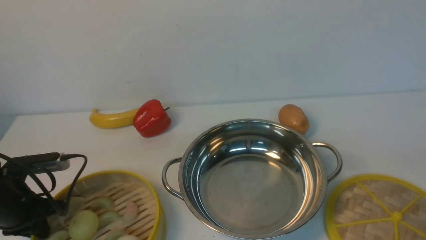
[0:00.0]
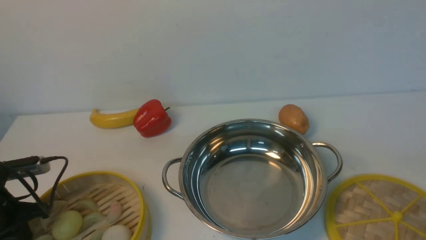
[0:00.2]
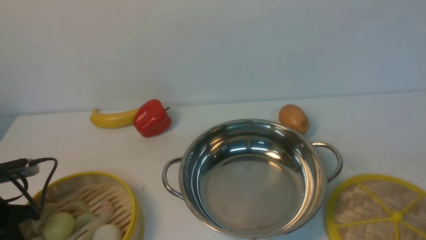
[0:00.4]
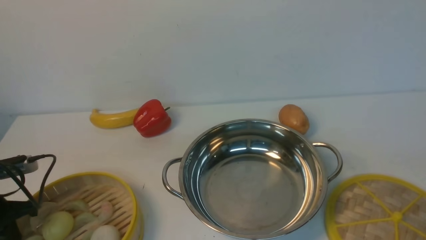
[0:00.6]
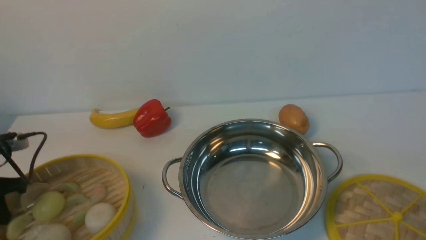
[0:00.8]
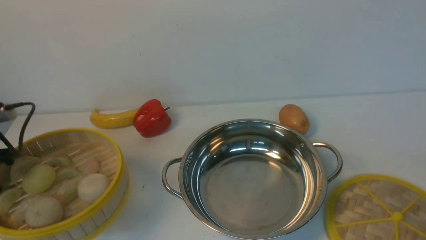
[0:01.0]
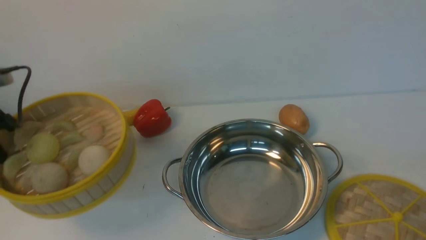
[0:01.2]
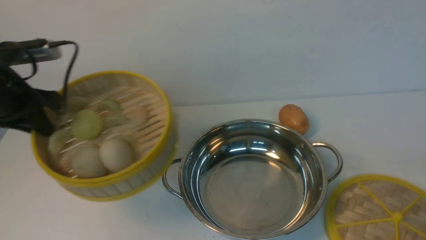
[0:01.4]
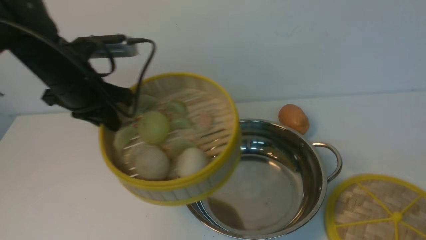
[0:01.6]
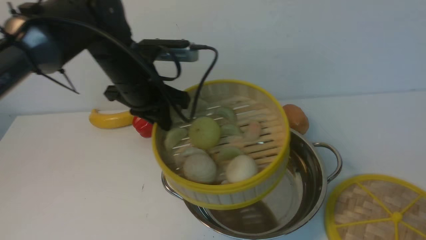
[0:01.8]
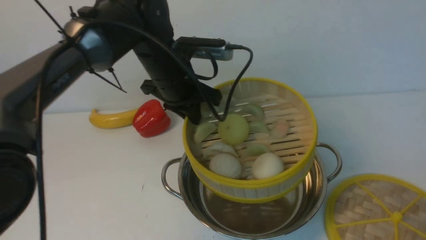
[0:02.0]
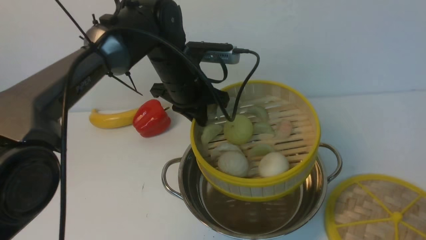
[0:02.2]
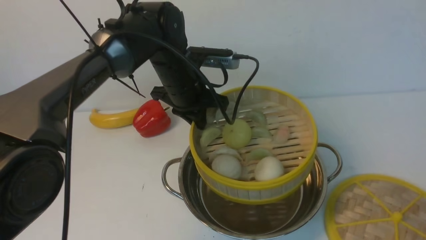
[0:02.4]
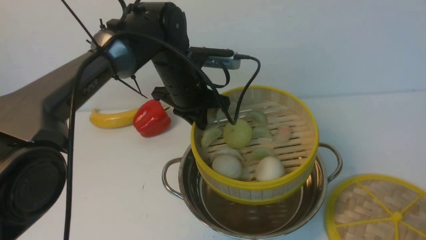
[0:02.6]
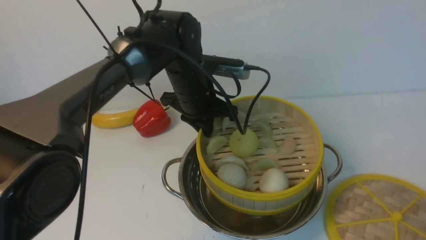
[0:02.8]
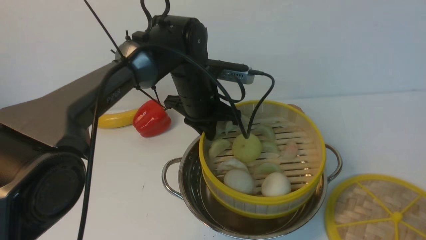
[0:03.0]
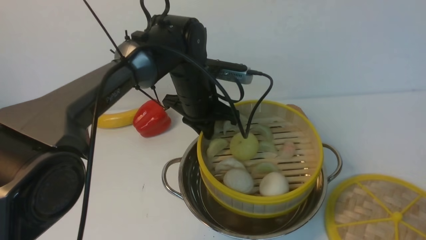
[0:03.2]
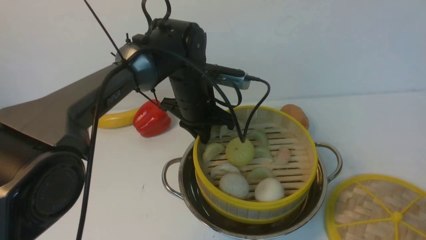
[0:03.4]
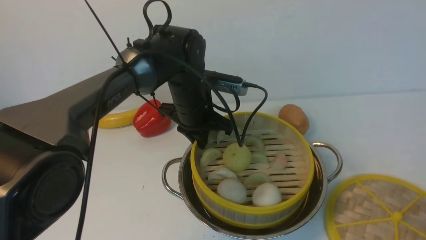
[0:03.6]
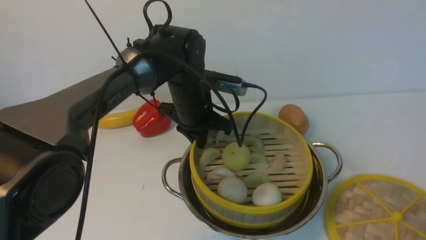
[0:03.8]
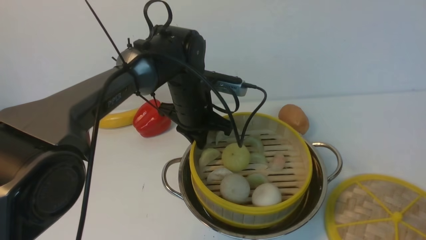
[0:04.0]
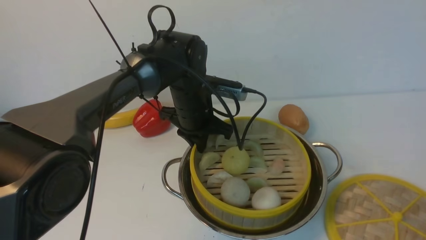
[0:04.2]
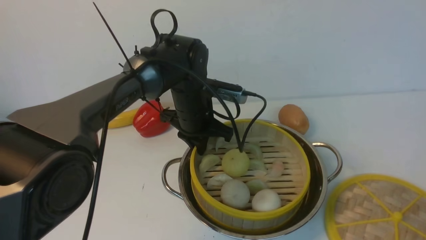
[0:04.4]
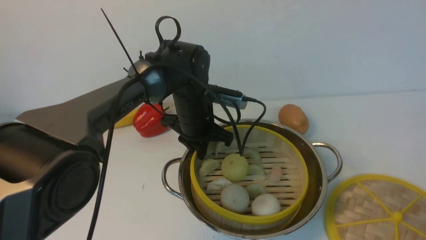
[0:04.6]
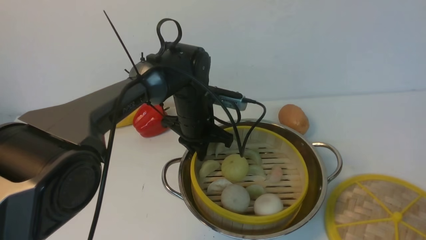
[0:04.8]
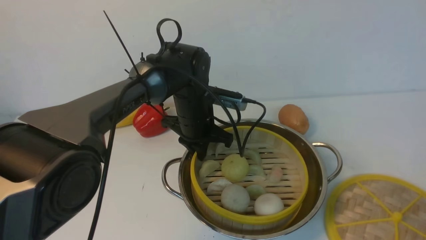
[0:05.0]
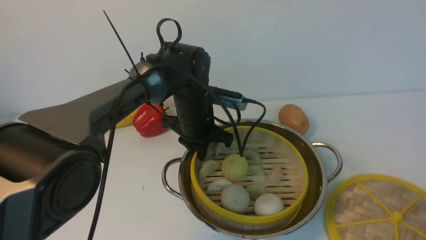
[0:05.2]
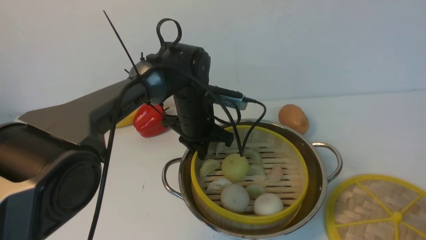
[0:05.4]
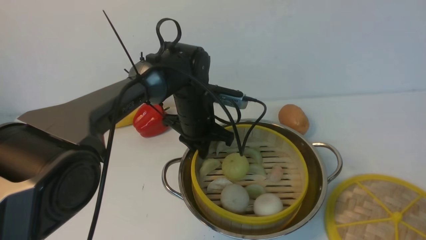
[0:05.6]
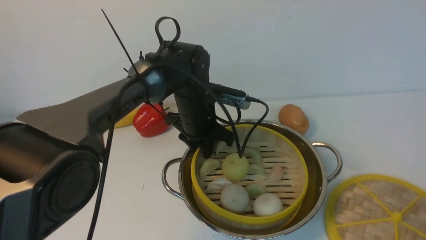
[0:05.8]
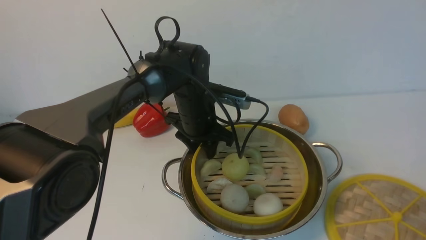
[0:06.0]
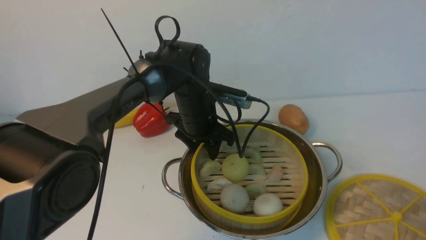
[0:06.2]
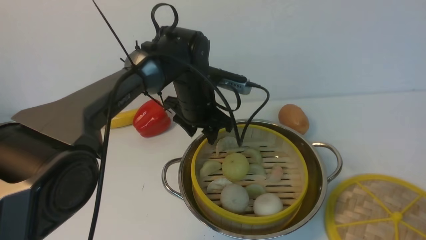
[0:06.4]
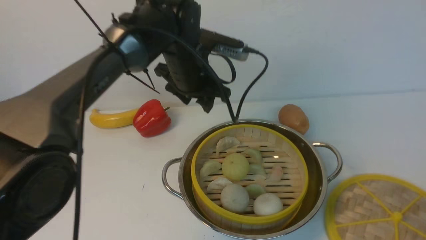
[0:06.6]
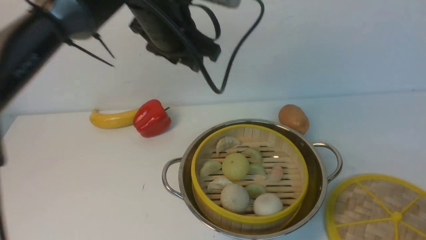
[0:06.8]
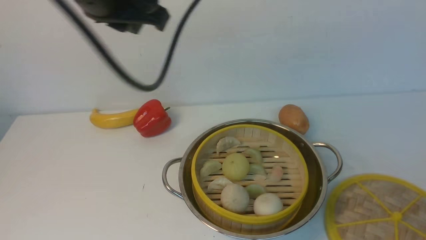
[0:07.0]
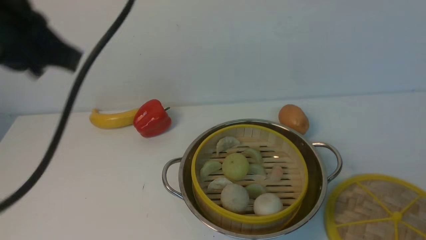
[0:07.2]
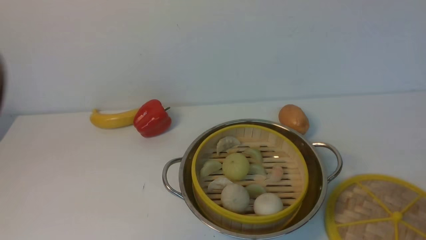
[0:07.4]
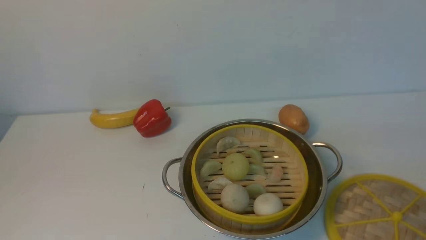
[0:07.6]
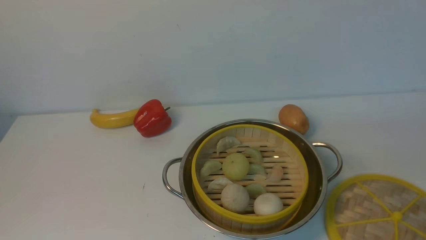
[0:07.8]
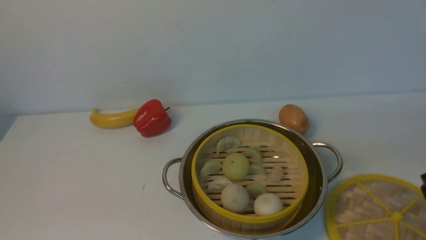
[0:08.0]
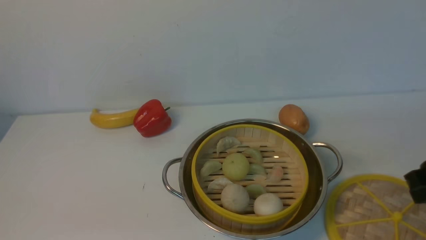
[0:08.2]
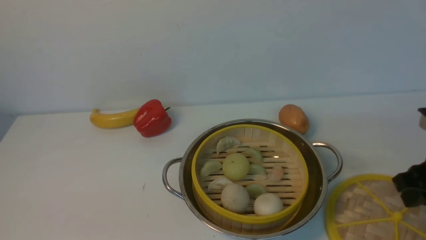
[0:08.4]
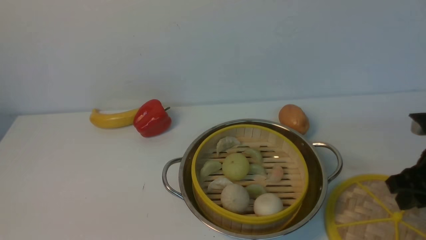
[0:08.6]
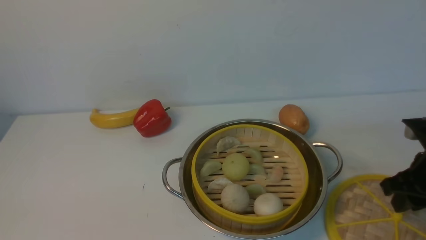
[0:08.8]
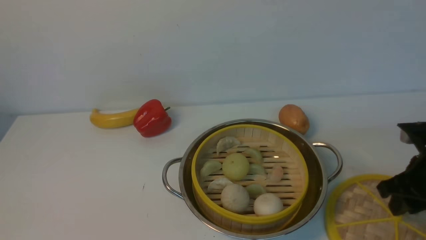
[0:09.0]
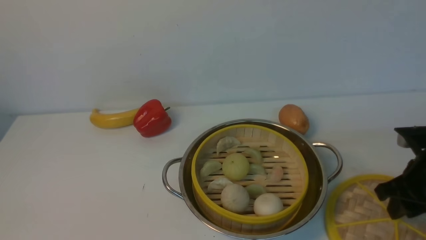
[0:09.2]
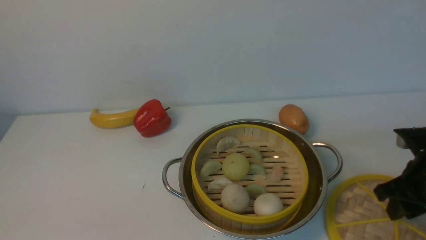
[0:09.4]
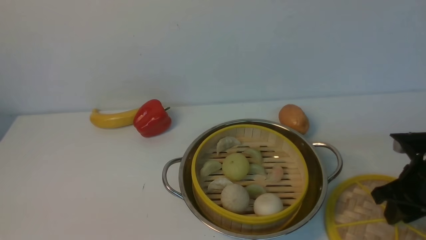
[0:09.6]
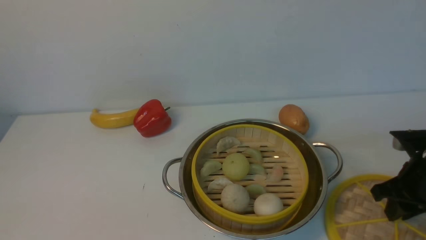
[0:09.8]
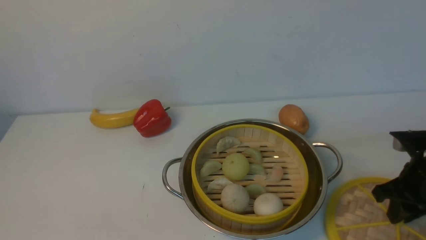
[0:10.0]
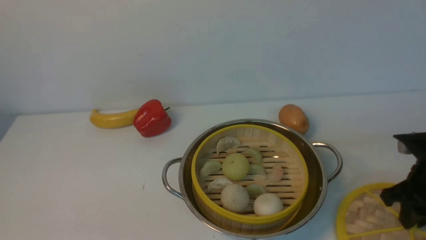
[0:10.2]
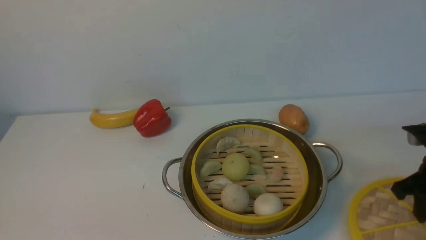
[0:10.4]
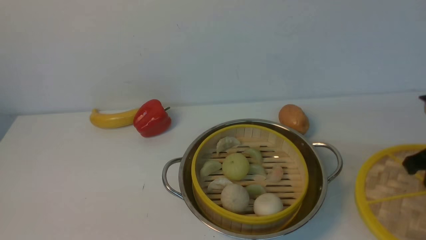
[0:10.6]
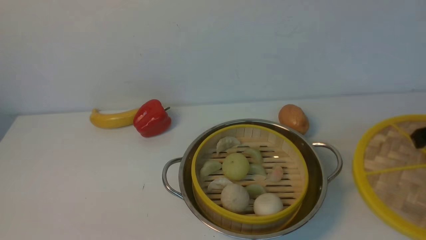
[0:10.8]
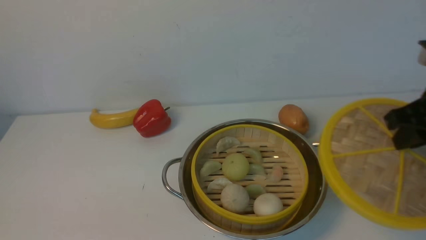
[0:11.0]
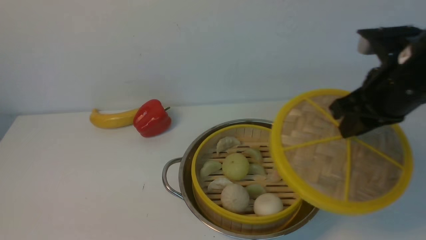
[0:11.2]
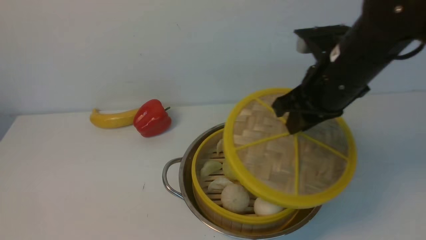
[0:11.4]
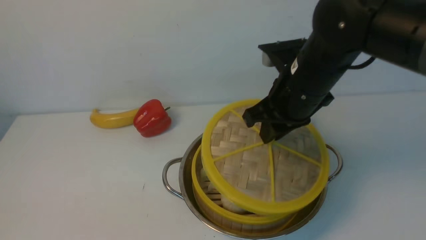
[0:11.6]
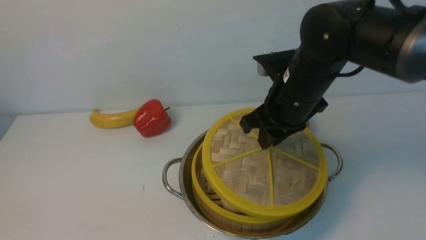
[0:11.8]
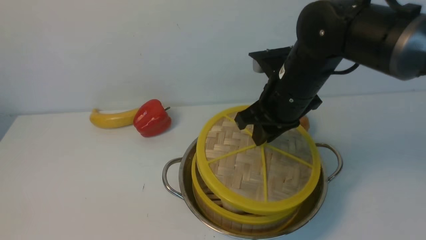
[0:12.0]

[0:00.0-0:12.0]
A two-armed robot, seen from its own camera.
Task of the whole recording: place the steamer in the pot on the white table, and put the lid on the steamer.
Step, 0:01.2 to 0:06.8: use the left arm to put the steamer into the iron steamer pot in the middle.
Step, 0:07.0 to 0:10.6: use the right arm to lift the lid of the steamer.
0:00.0 to 0:01.6: The left gripper travels upward, to the right and forward by roughly 25 cm.
0:01.6 to 0:03.0: The left gripper moves to the right and downward, roughly 15 cm.
0:04.4 to 0:06.0: The left gripper opens.
0:06.0 to 0:07.6: The left gripper heads backward, to the left and upward, covering some 40 cm, and closes up, while the right gripper moves forward, approximately 10 cm.
0:07.6 to 0:09.0: The right gripper goes approximately 20 cm forward and downward.
0:09.0 to 0:10.4: The right gripper closes its fingers.
0:10.4 to 0:12.0: The right gripper heads to the left, covering about 20 cm.

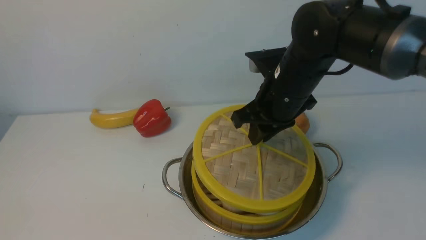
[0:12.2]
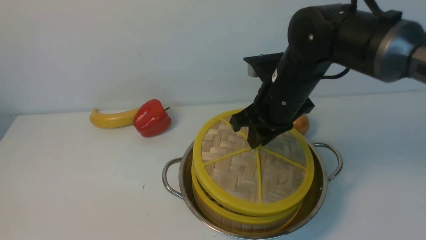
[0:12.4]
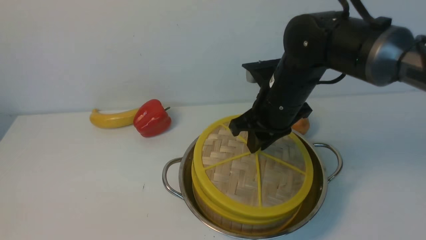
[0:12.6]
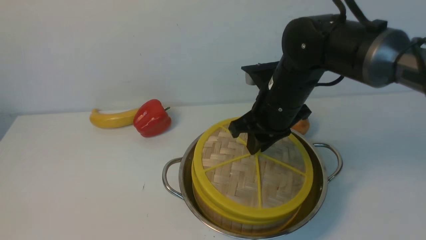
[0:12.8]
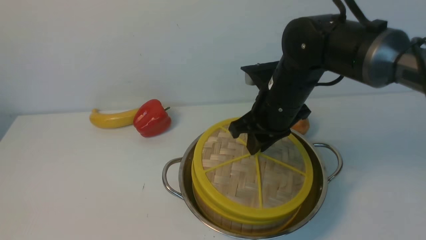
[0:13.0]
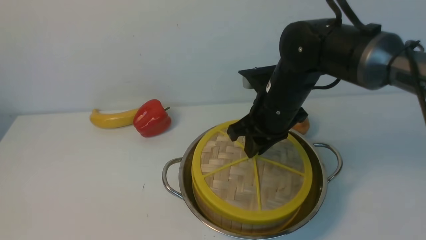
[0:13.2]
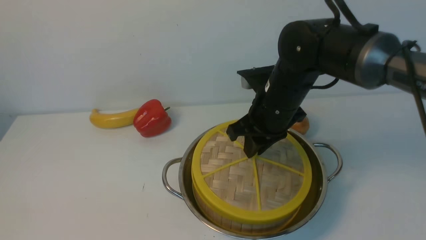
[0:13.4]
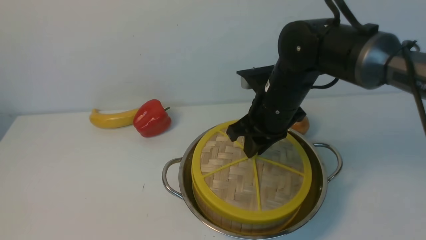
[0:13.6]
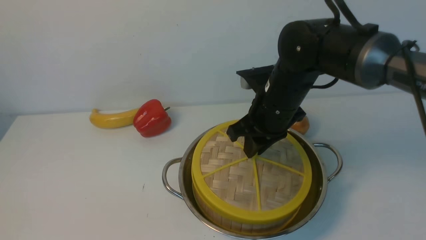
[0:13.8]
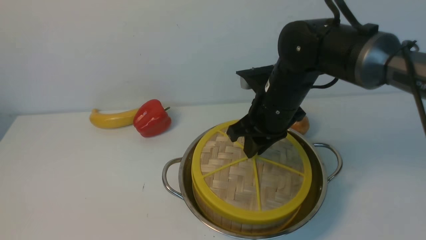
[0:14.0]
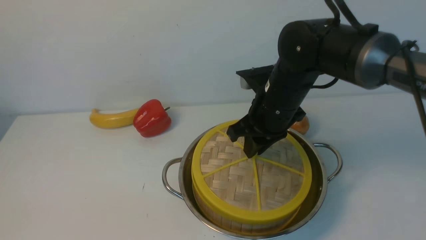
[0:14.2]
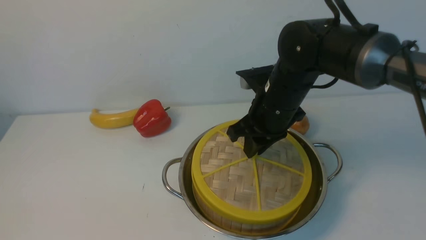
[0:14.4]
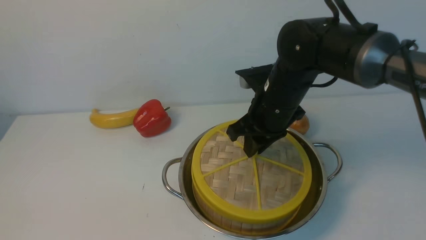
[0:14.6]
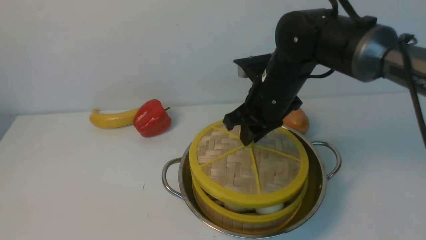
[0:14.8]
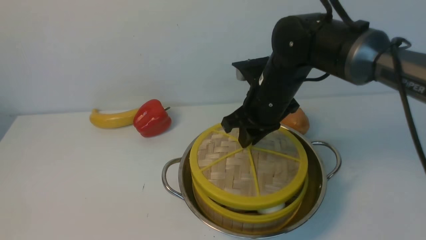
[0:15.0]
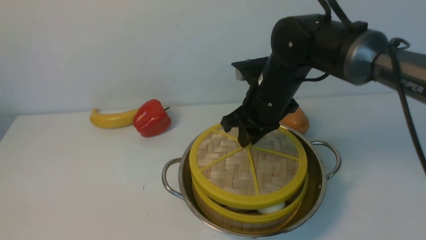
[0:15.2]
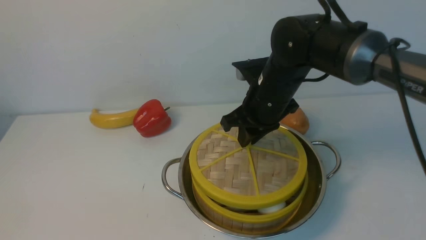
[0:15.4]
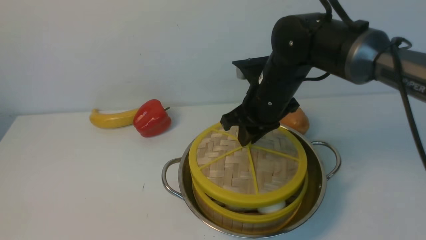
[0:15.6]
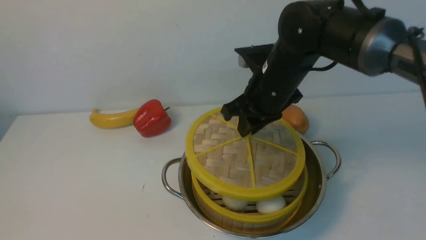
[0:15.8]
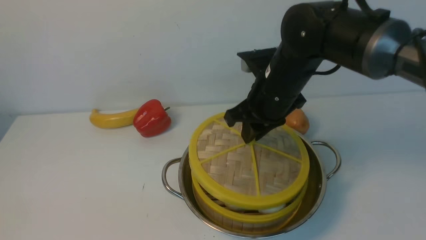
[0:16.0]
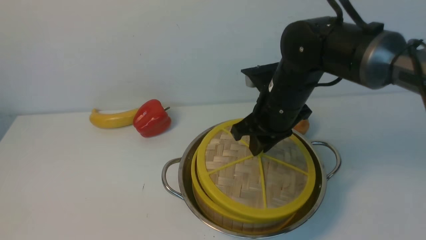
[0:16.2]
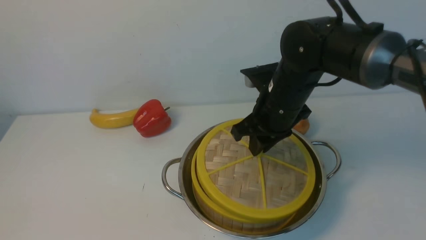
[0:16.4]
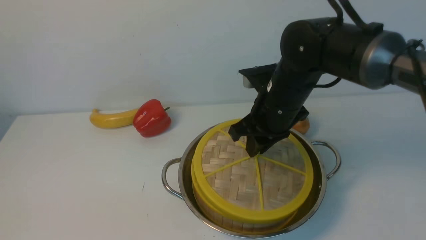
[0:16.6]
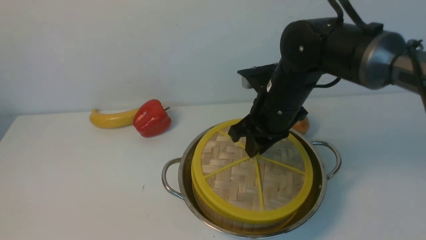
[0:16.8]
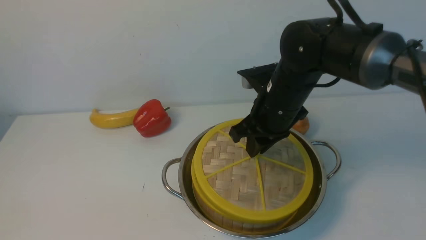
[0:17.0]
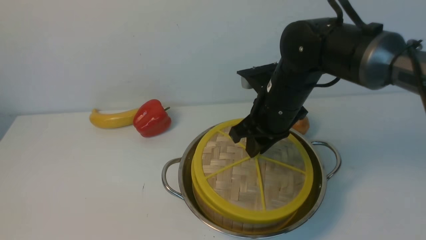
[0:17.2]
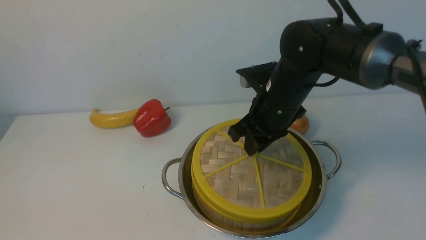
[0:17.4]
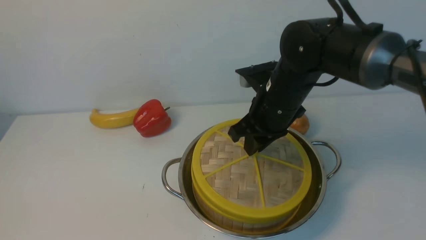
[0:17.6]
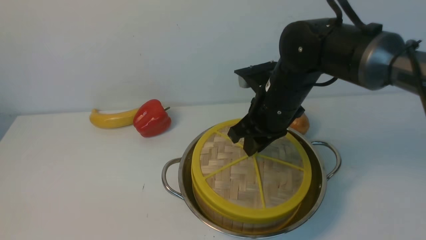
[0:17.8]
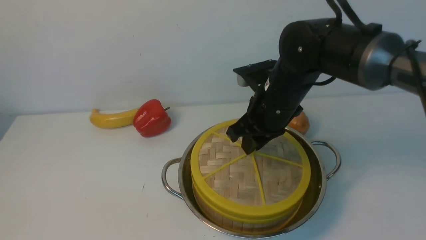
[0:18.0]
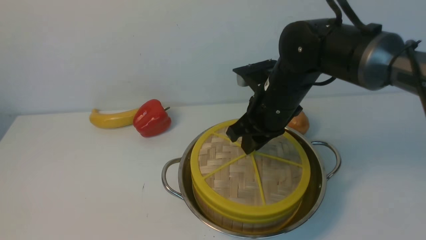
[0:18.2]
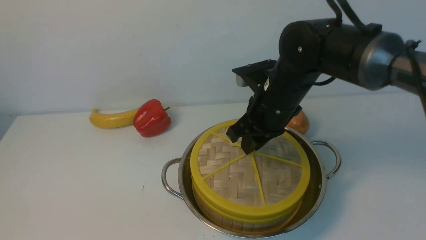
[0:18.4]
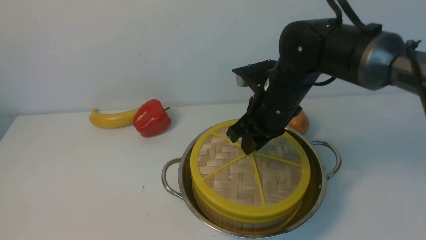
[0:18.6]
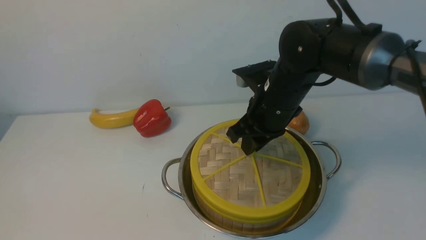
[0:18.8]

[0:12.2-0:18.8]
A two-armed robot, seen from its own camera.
Task of the whole recording: place the steamer in the pot on the white table, and put the lid on the steamer.
0:12.2 to 0:17.2: There are only small adjustments of the grippers.
0:17.2 to 0:18.8: Neither gripper changes place.
